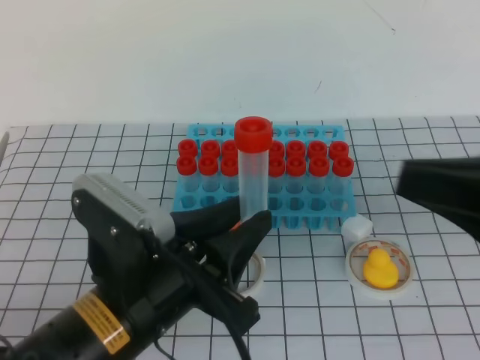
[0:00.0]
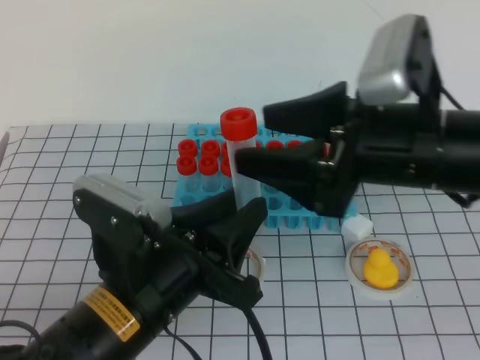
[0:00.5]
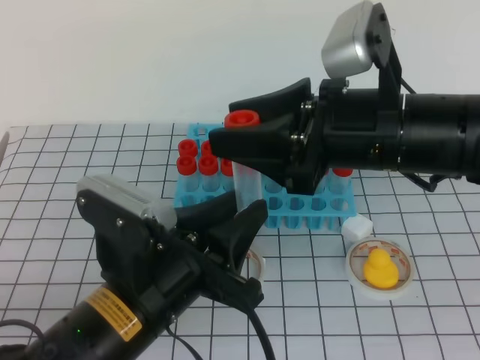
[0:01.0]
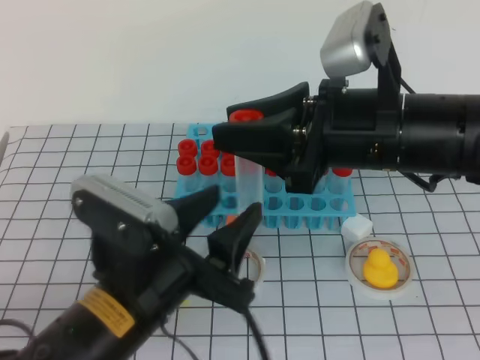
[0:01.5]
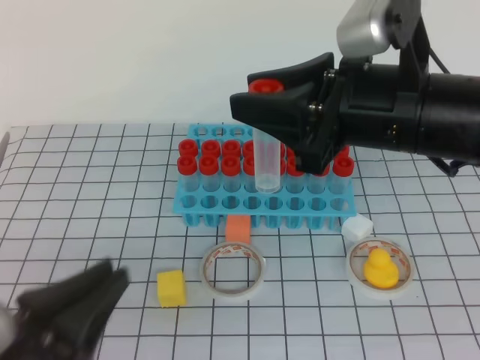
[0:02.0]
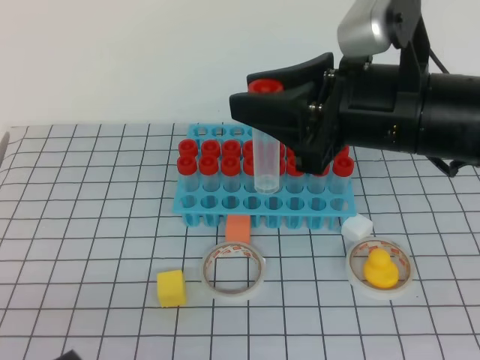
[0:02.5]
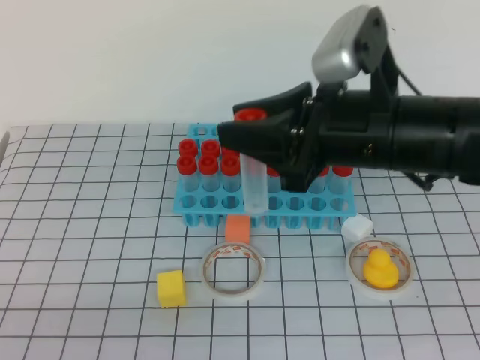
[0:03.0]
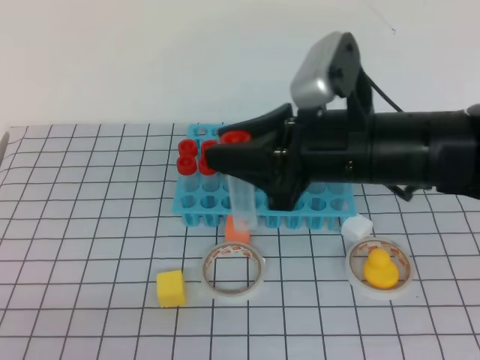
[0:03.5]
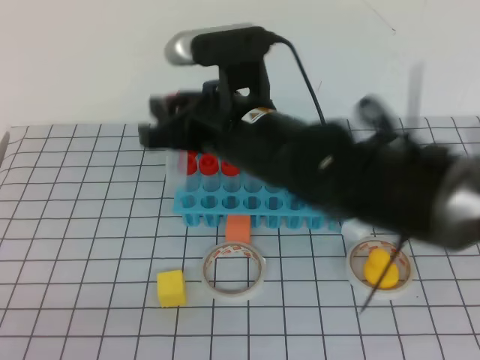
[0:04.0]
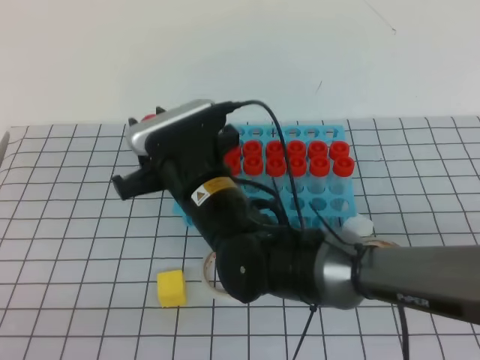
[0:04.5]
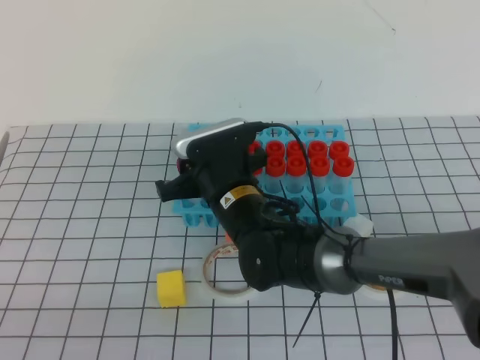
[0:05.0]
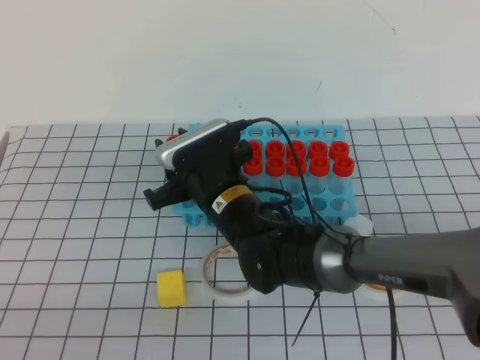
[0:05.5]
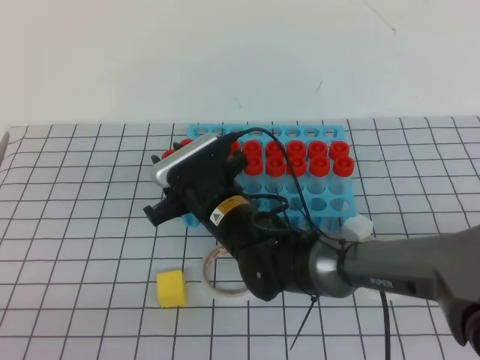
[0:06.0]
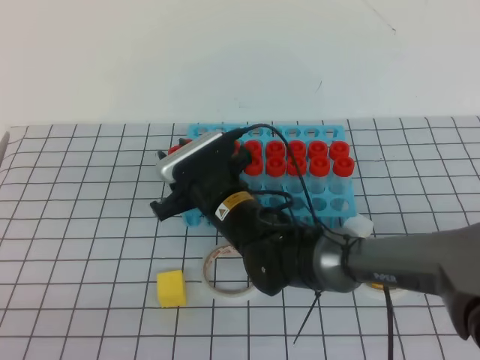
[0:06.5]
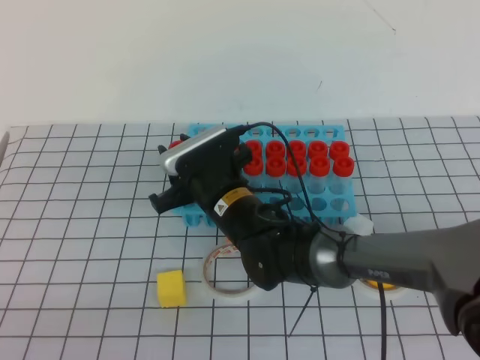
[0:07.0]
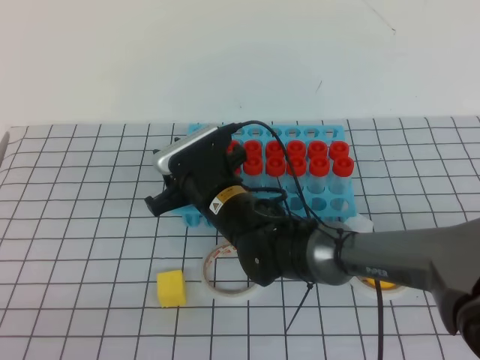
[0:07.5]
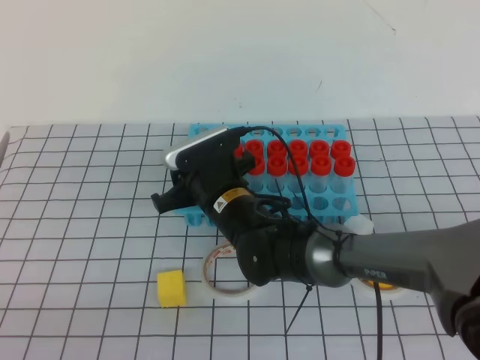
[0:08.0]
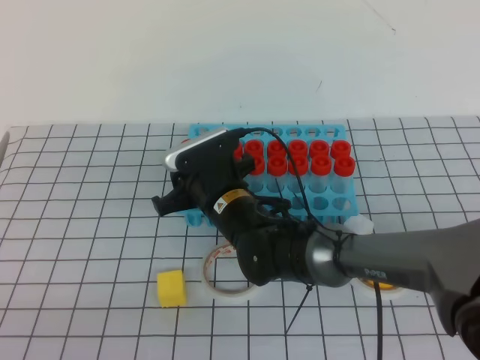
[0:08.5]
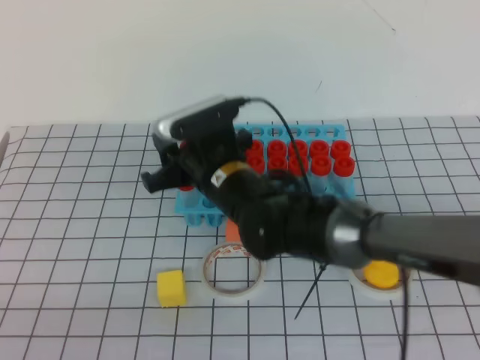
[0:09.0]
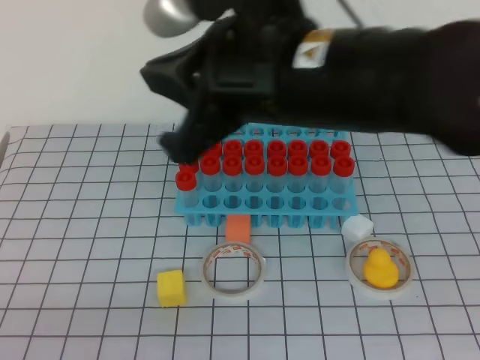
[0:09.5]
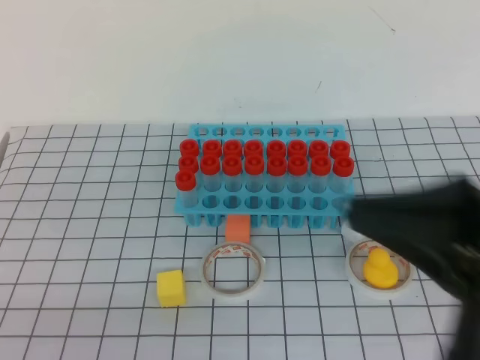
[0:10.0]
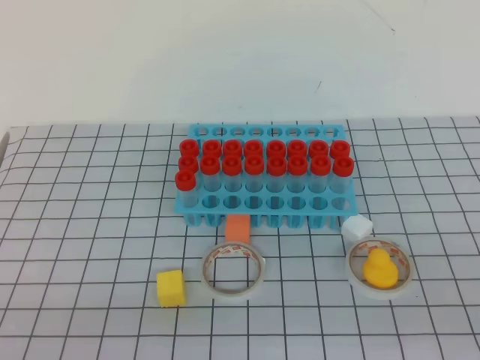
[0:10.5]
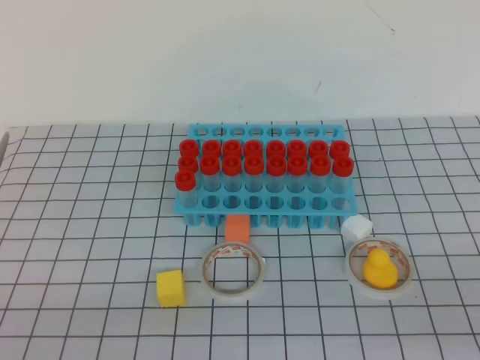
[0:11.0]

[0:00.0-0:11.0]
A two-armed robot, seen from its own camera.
0:00.0 to 0:02.0: The left gripper goes some 10 cm to the left and backward, and opens and closes again; the right gripper moves to the left and forward, some 15 cm, and opens, then closes again.
0:02.0 to 0:03.5: The right gripper changes place by roughly 5 cm, while the left gripper moves backward, about 5 cm, and closes up.
0:03.5 to 0:05.5: The right gripper goes about 20 cm downward, to the left and forward.
0:05.5 to 0:07.5: There are only small adjustments of the grippers.
0:07.5 to 0:09.0: The right gripper shifts some 5 cm upward.
0:09.0 to 0:11.0: The right gripper heads to the right and backward, covering some 40 cm, and closes up.
